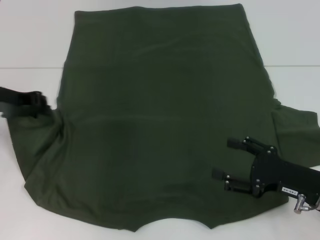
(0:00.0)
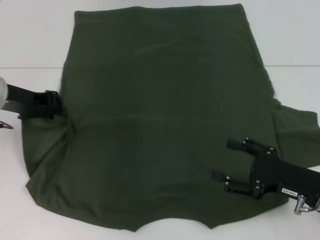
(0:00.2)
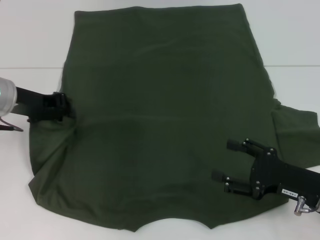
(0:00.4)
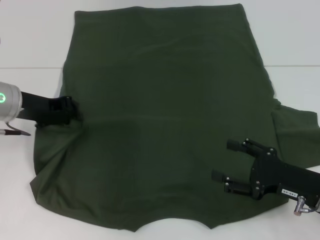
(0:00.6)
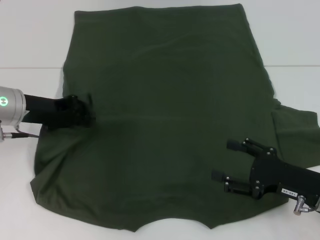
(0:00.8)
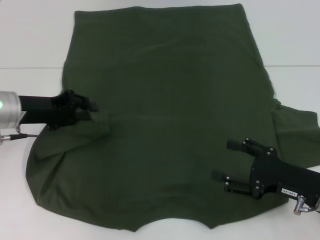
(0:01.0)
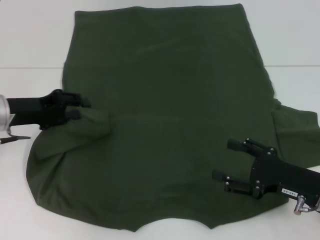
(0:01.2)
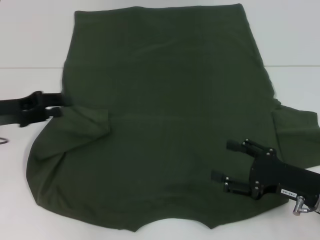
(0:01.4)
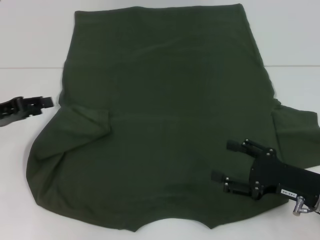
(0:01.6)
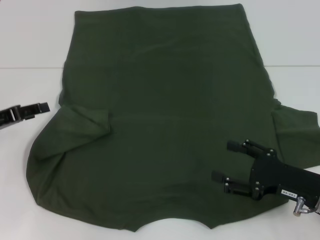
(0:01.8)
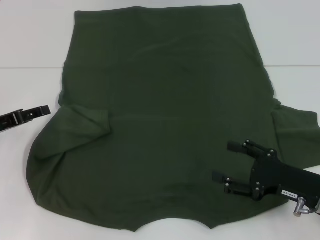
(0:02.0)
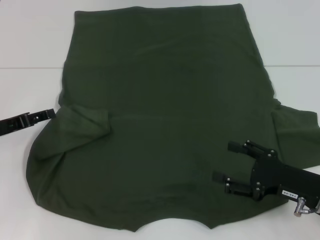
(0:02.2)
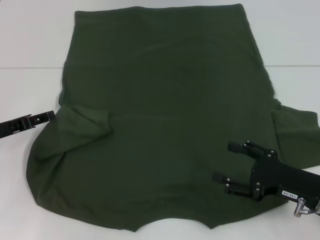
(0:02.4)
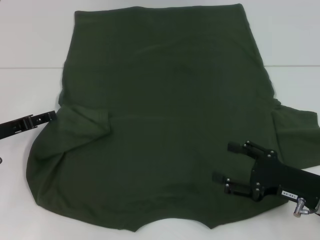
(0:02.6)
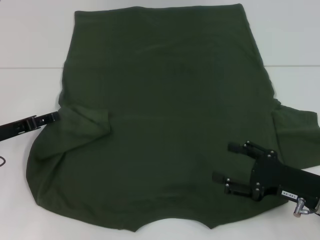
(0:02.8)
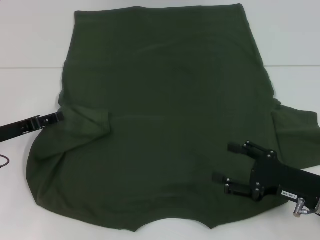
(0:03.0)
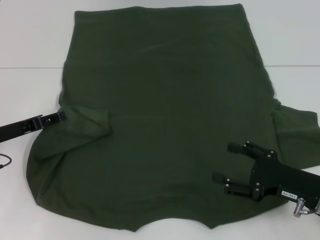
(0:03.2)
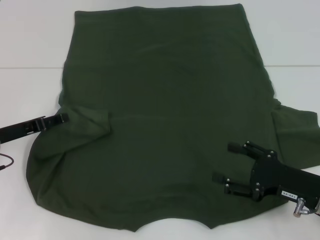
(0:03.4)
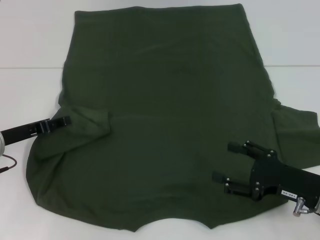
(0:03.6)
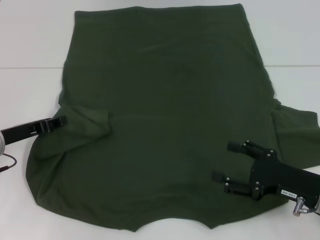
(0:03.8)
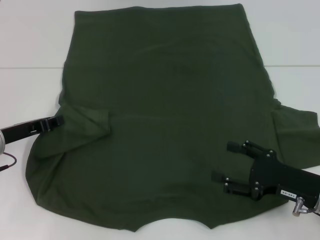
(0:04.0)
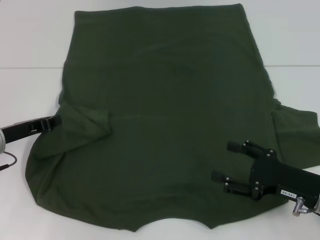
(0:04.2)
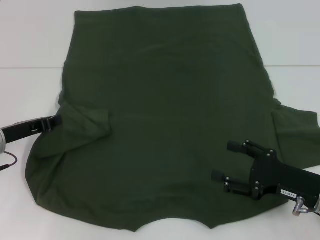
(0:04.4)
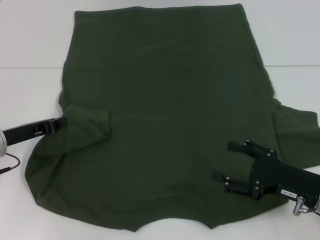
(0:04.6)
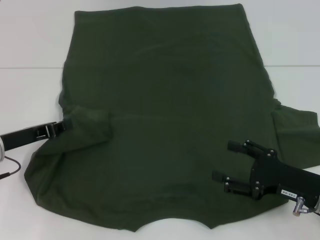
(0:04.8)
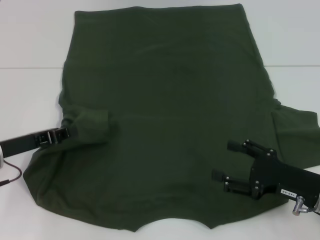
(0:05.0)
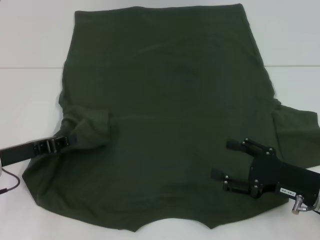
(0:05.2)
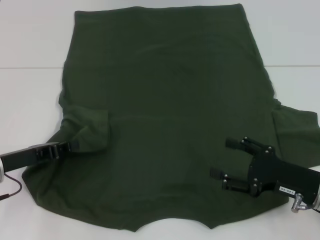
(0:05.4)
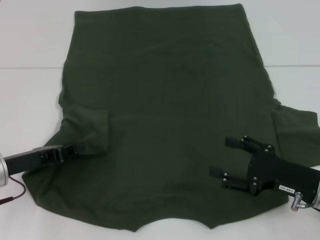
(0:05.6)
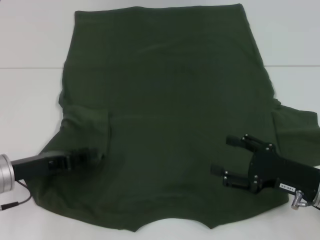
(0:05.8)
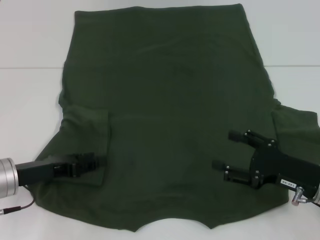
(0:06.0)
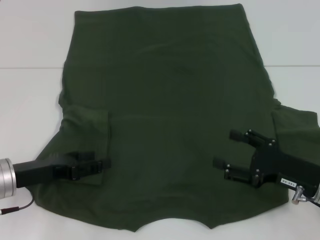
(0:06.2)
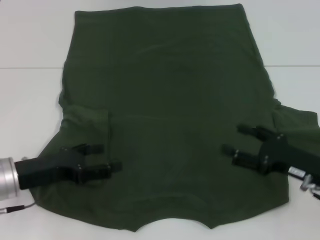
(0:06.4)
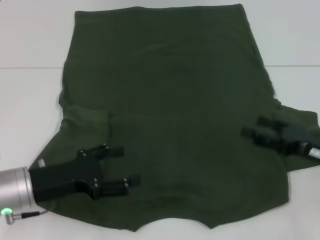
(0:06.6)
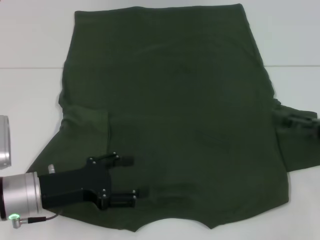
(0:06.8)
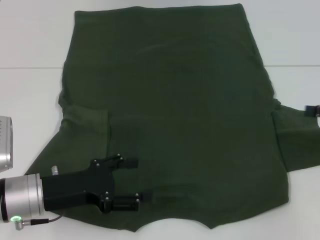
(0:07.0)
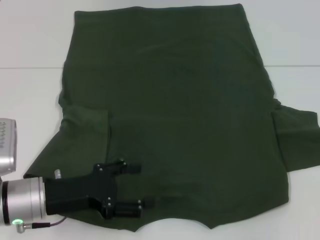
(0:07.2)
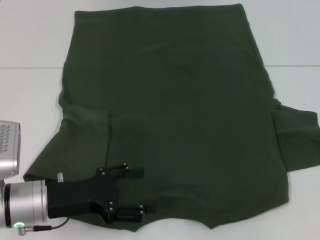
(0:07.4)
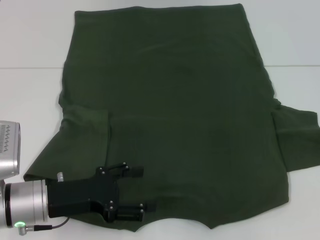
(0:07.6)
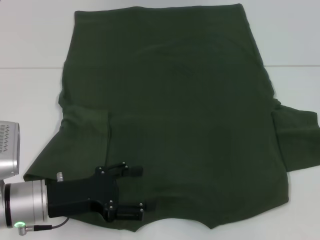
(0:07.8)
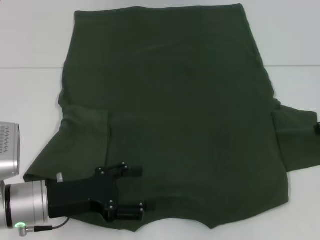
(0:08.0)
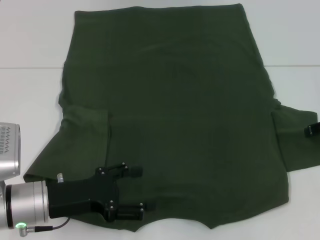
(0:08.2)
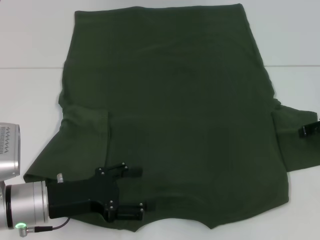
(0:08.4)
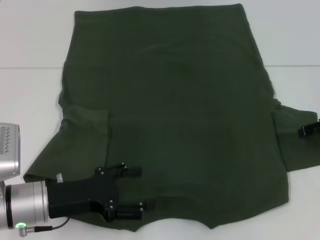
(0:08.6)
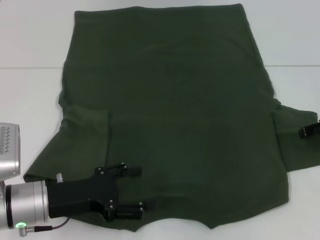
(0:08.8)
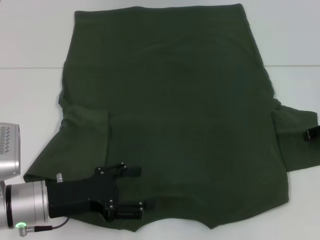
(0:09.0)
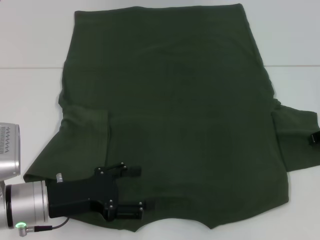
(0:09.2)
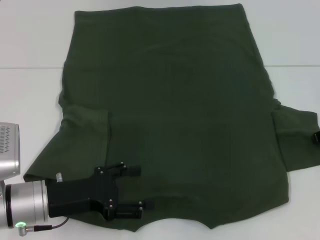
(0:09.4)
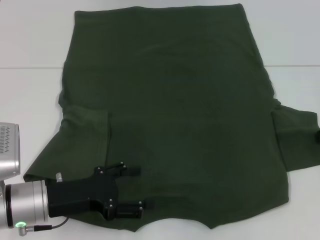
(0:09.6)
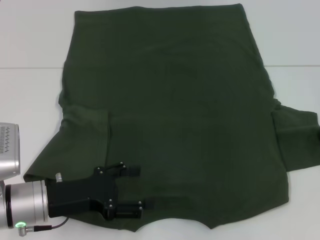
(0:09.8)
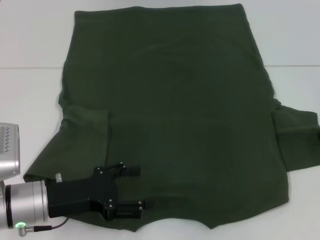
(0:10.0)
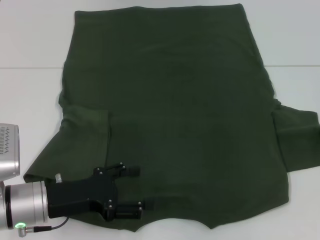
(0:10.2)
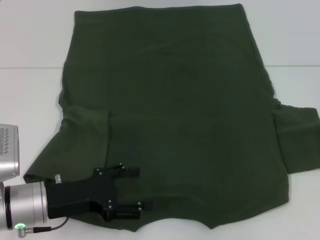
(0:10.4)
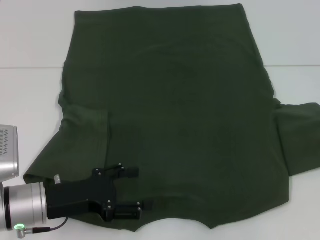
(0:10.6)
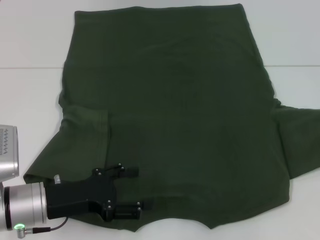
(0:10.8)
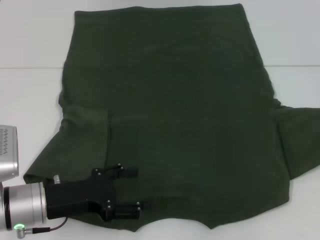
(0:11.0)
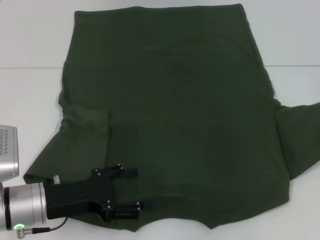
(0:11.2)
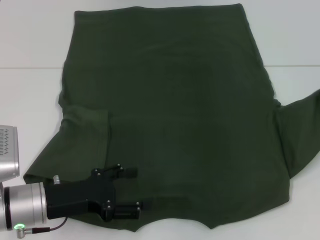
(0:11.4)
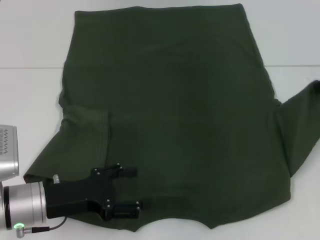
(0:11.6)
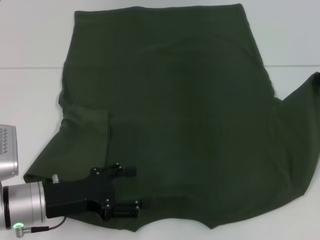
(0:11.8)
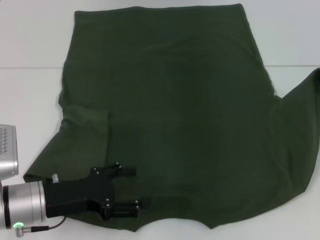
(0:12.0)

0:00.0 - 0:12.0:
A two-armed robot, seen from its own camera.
Step, 0:00.0 - 0:05.8: Fold the bottom left sleeve with your left hand.
0:00.0 - 0:01.6: The left gripper ends up roughly 10 cm from where it was, and opens its fingers.
0:01.6 - 0:03.0: The left gripper moves roughly 5 cm.
0:03.0 - 0:04.4: The left gripper closes its fingers.
0:04.4 - 0:06.0: The left gripper goes approximately 5 cm backward.
0:06.0 - 0:07.6: The left gripper shifts about 5 cm to the right, and opens its fingers. The right gripper travels upward, to the right and forward by about 20 cm.
0:09.0 - 0:10.4: The right gripper closes.
0:10.4 - 0:12.0: The right gripper heads upward, covering roughly 10 cm.

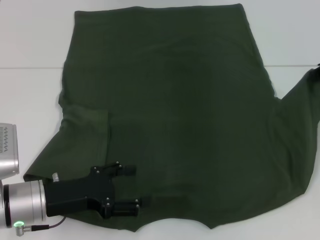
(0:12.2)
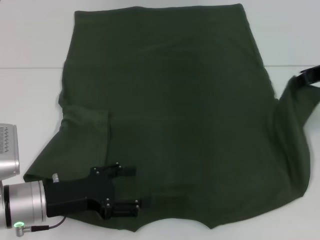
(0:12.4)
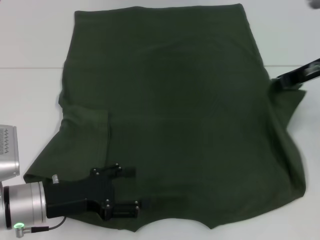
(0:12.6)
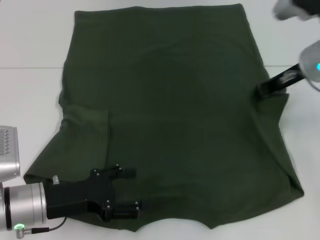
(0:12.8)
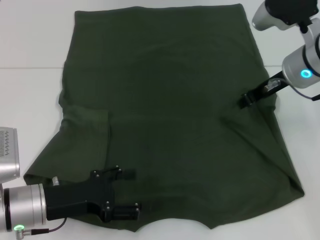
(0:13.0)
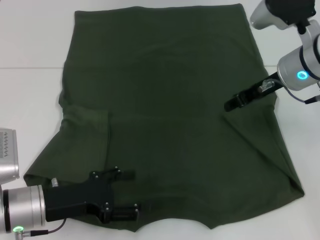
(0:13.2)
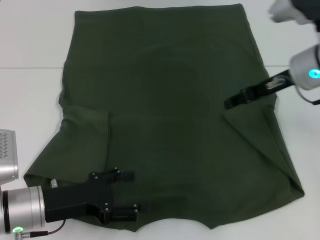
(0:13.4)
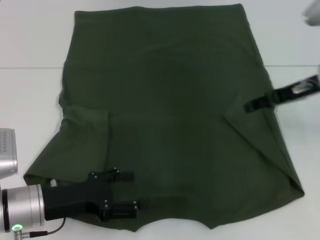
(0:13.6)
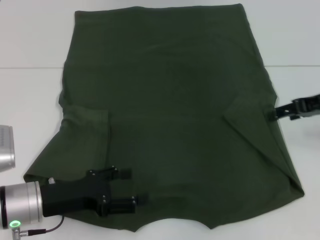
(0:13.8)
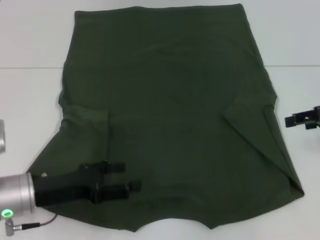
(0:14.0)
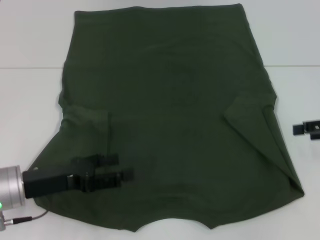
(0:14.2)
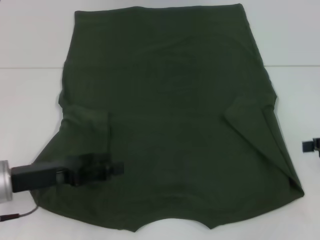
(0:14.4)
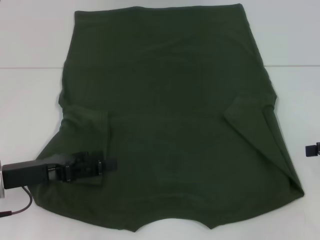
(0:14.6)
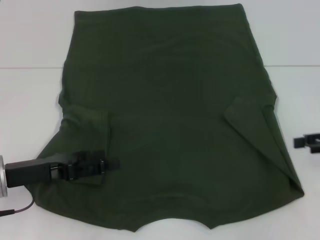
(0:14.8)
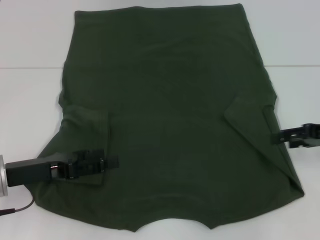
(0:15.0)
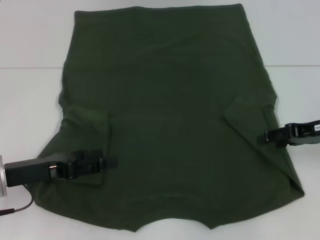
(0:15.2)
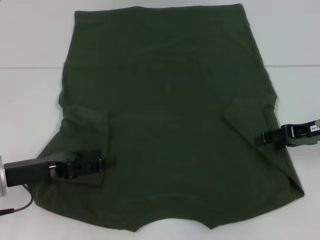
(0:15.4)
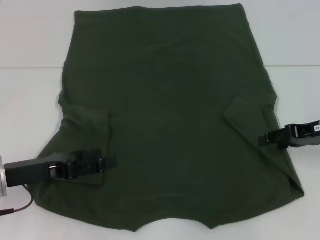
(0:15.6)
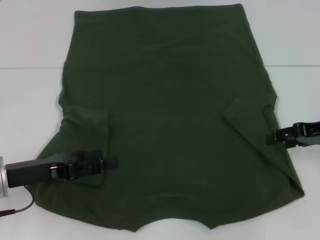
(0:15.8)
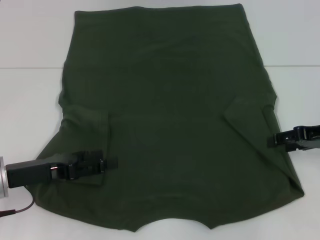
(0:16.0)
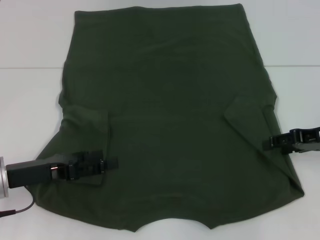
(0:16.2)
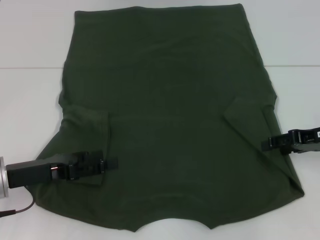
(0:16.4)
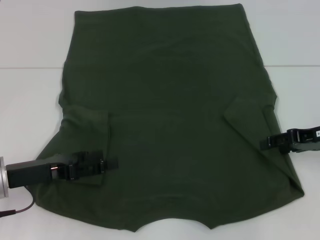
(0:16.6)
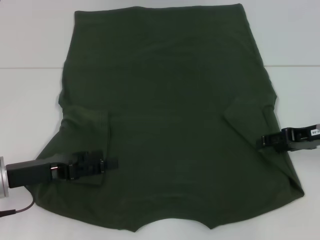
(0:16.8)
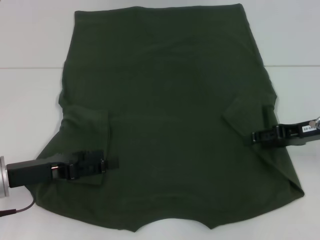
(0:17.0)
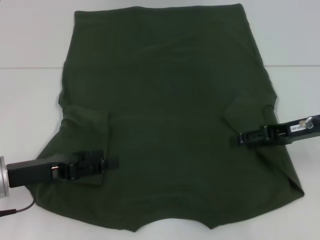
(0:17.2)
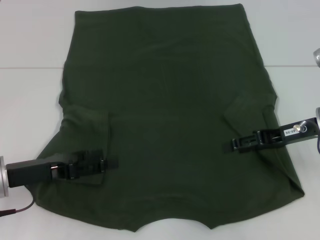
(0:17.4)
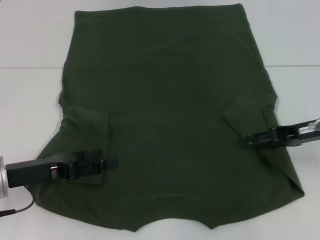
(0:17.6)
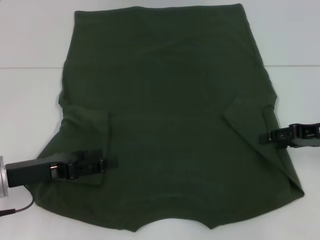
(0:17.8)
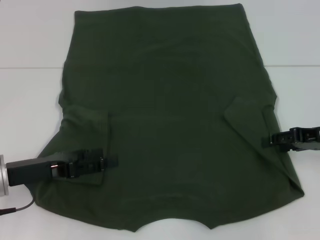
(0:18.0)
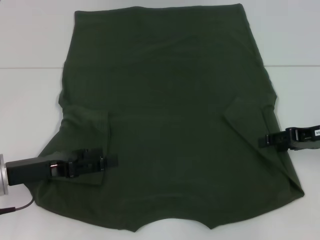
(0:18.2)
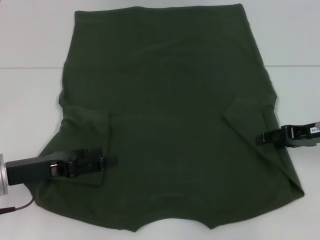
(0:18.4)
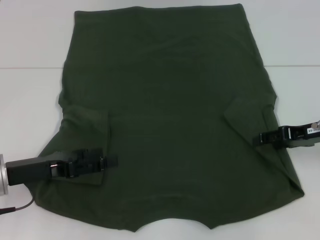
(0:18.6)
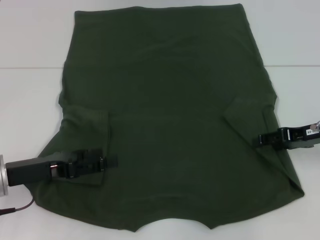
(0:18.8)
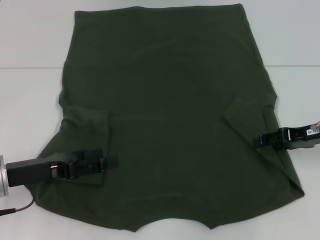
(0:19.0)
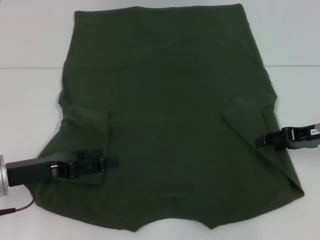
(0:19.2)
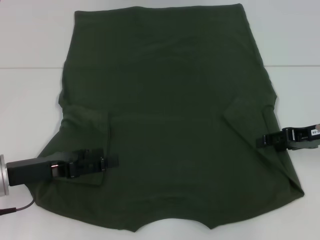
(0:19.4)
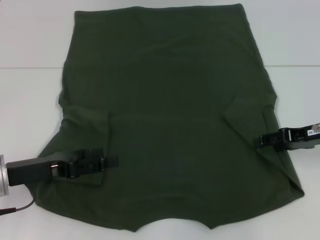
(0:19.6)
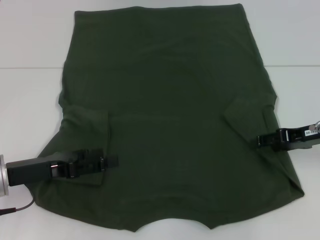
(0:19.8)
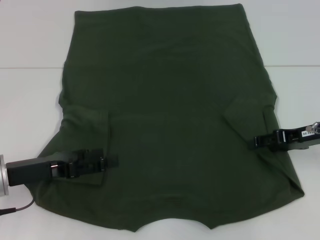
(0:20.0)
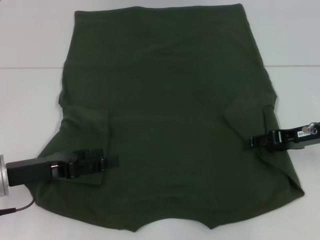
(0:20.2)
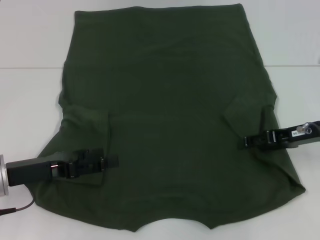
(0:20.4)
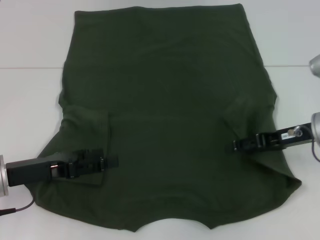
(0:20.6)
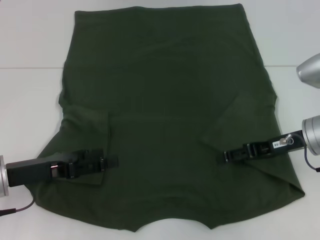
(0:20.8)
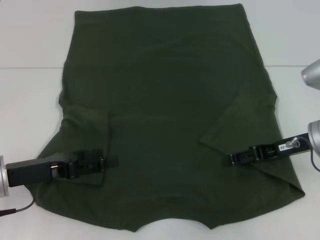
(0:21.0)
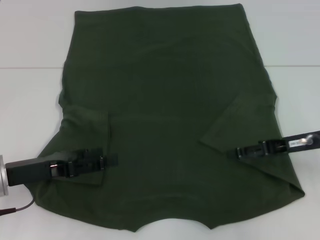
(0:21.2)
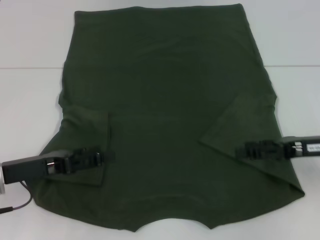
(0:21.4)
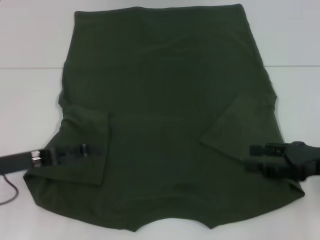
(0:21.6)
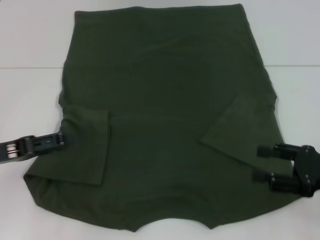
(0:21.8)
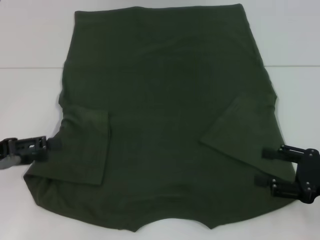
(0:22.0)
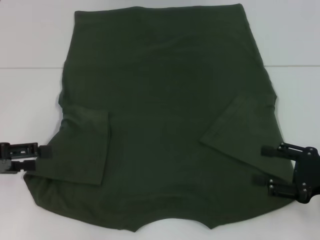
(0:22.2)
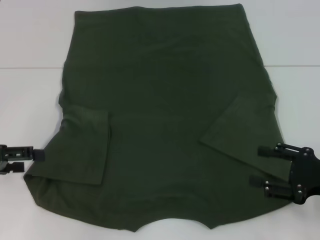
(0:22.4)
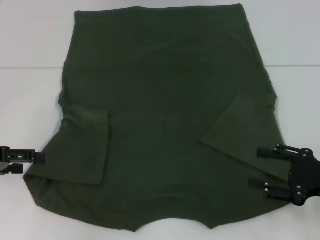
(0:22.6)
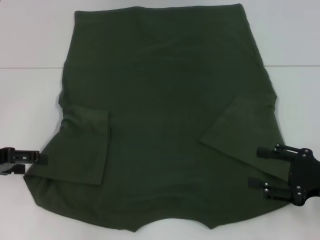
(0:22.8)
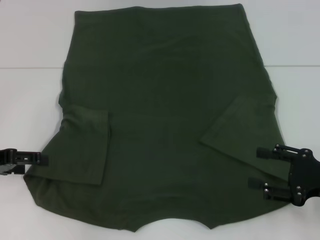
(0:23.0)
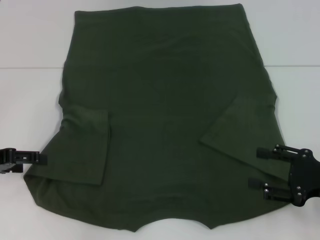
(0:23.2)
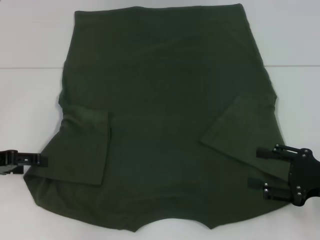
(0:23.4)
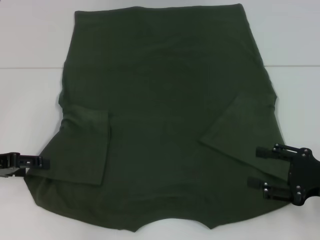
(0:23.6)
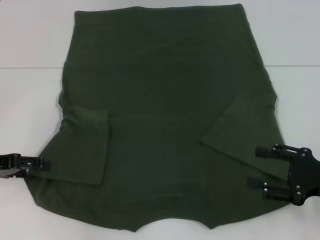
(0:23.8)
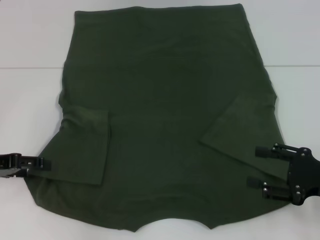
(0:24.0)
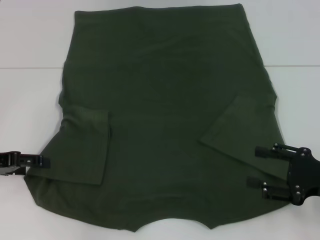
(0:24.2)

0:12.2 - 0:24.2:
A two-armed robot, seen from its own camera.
0:12.2 - 0:13.8: The right gripper reaches about 10 cm to the left, then returns, and opens.
0:13.8 - 0:15.2: The right gripper goes to the right and returns, some 10 cm each way; the left gripper ends up roughly 5 cm from where it was.
0:15.2 - 0:16.6: Both grippers stay about where they are.
0:16.6 - 0:18.2: The grippers move only a little.
0:19.8 - 0:21.2: The grippers move only a little.
0:21.2 - 0:22.6: The left gripper heads to the left, covering approximately 10 cm. The right gripper moves backward, approximately 10 cm.
0:22.6 - 0:24.2: The grippers move only a little.
